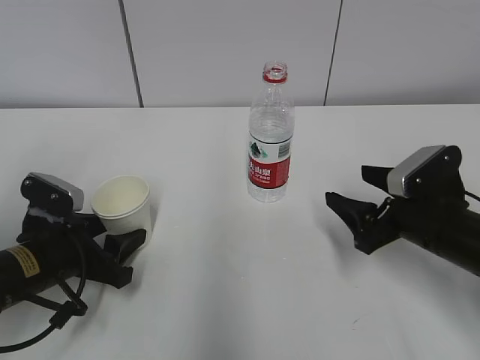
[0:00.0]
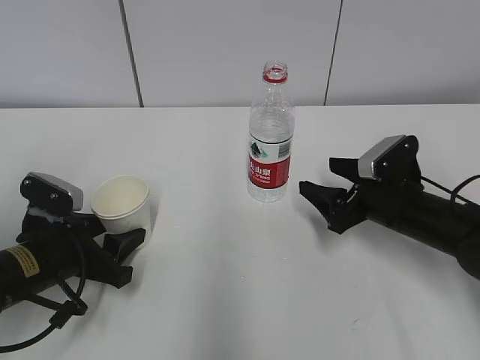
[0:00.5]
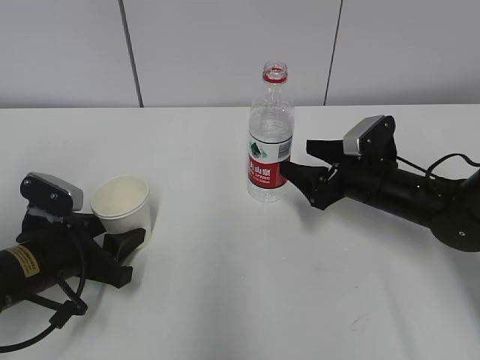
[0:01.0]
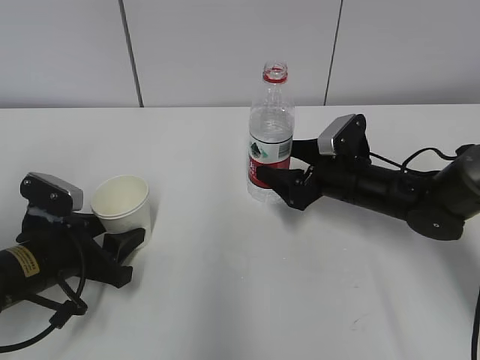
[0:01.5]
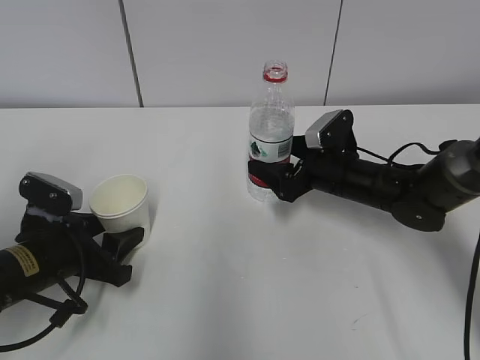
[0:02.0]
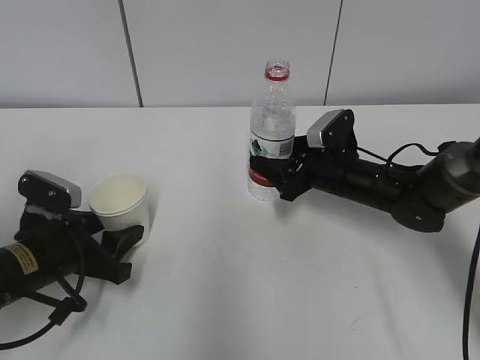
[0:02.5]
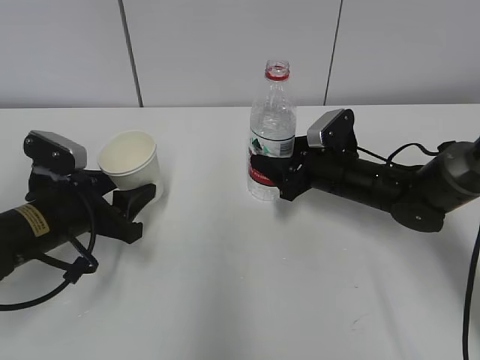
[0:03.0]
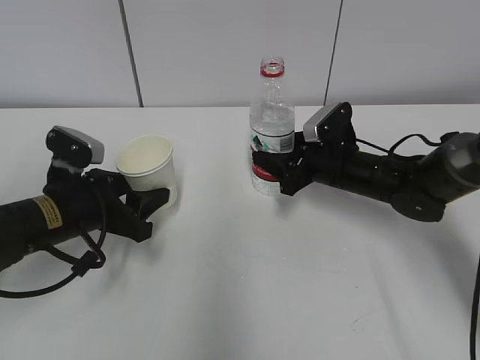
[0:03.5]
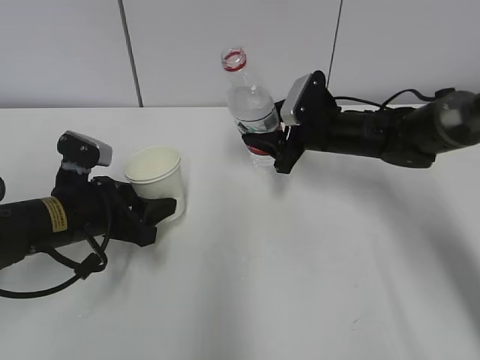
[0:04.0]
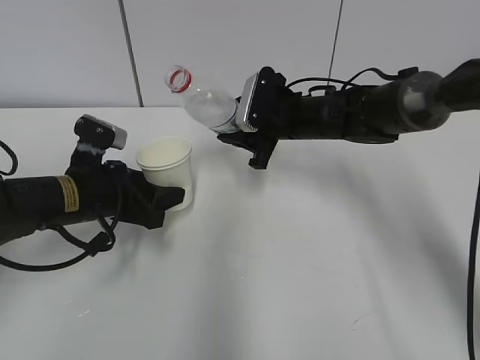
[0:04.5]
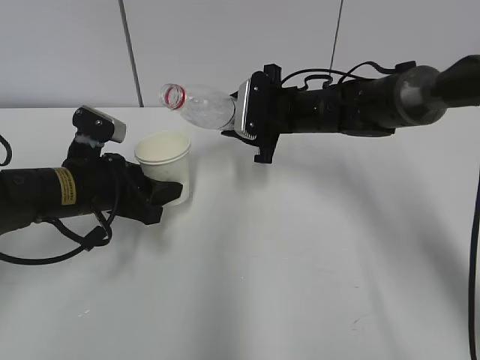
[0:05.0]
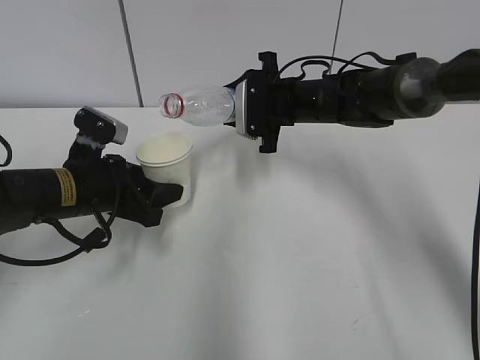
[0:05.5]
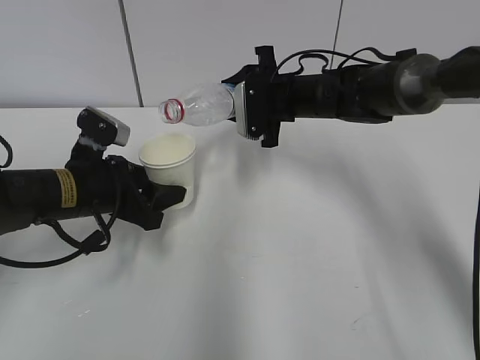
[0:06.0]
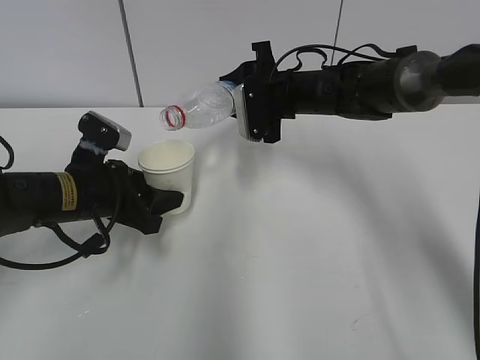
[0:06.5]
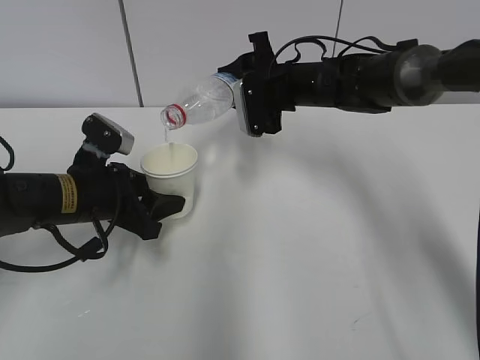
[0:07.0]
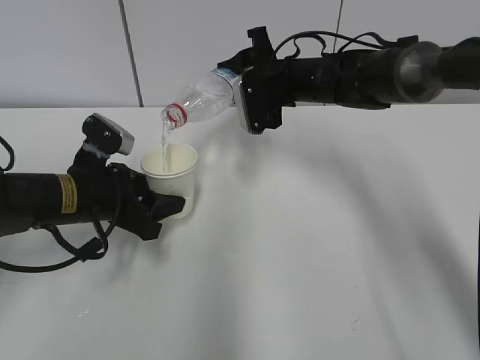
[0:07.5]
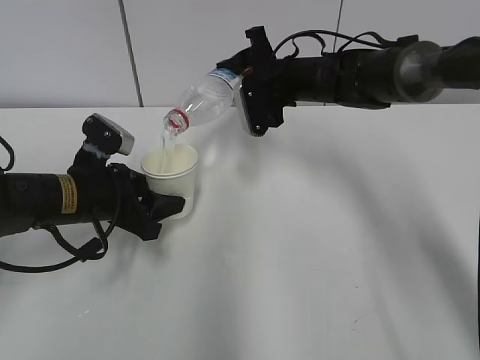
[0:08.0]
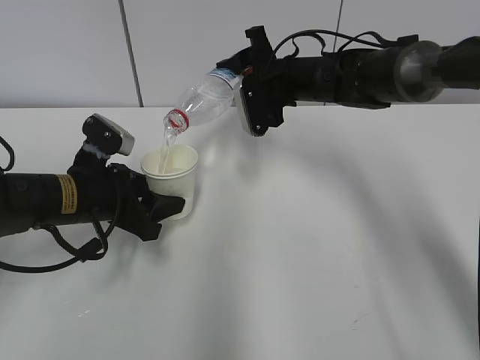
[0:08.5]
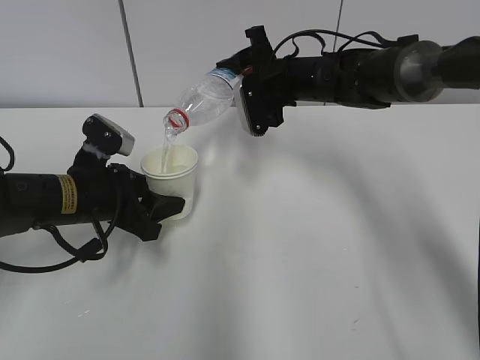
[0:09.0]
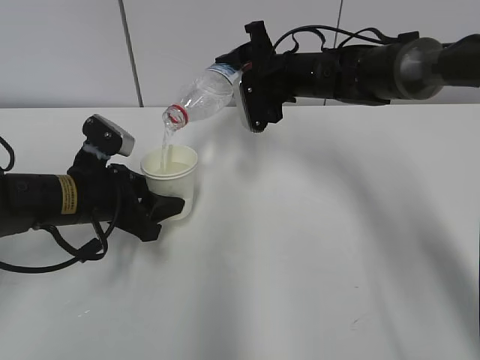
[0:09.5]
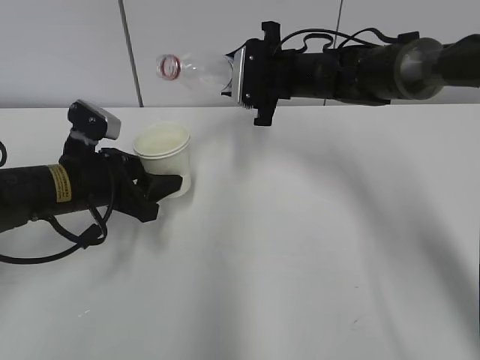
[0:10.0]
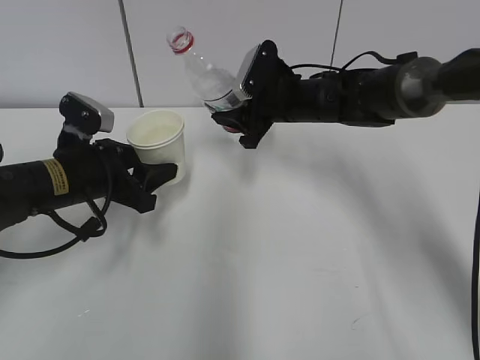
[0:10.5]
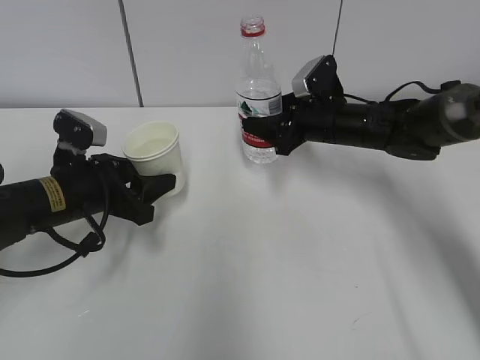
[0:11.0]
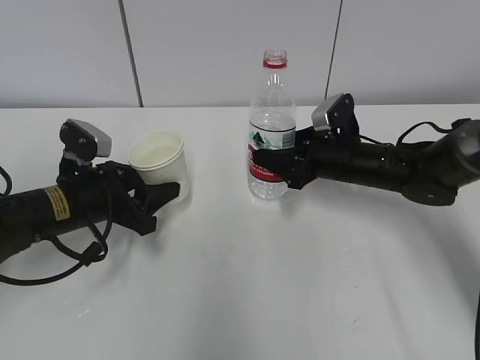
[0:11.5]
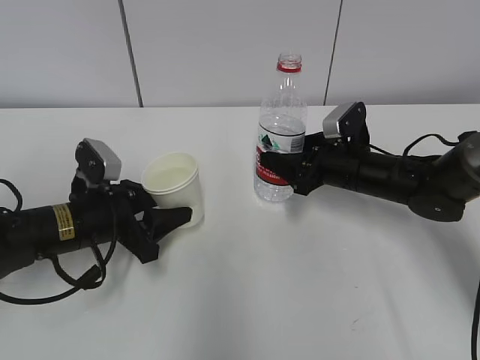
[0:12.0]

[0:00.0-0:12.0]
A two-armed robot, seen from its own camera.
Step, 0:01.5 to 0:04.5: Lift the paper cup with the left hand.
Step, 0:05.0 to 0:07.0: Fill water with the left hand.
Step, 0:05.0 to 0:07.0: Pour water with the right hand.
Step, 0:07.5 to 0:08.0: Collect water with the right hand.
Step, 0:08.5 to 0:10.0: Place the paper cup with the left hand.
Step, 0:10.5 to 0:11.0: Place the water bottle with the right hand.
0:00.0 to 0:02.0: The right gripper moves forward and to the left, roughly 15 cm.
0:02.0 to 0:04.0: The right gripper shifts by about 5 cm, and closes its fingers, while the left gripper shifts by some 5 cm.
0:04.0 to 0:06.0: The right gripper shifts by about 5 cm.
0:06.0 to 0:08.0: The grippers stay close to where they were, moving slightly.
0:10.0 to 0:12.0: The right gripper shifts roughly 15 cm downward, backward and to the right.

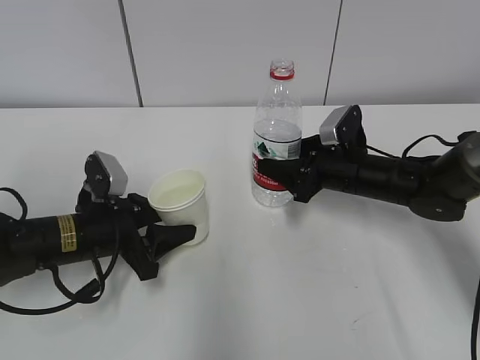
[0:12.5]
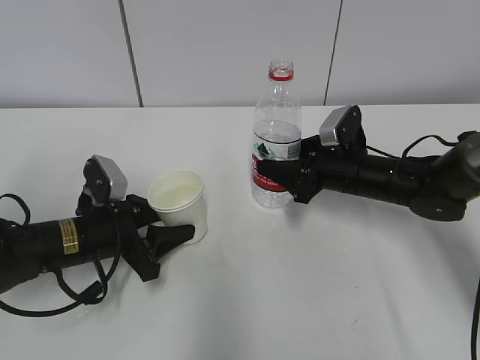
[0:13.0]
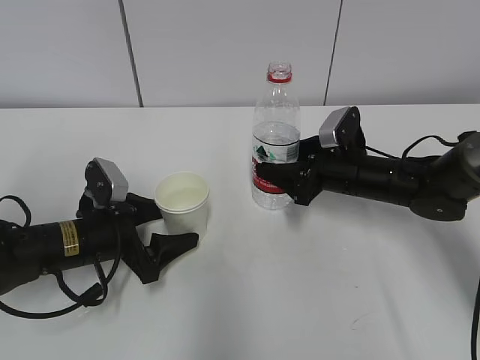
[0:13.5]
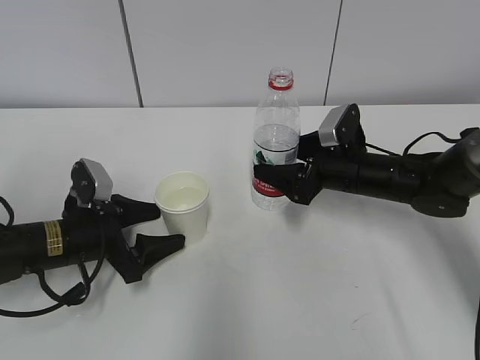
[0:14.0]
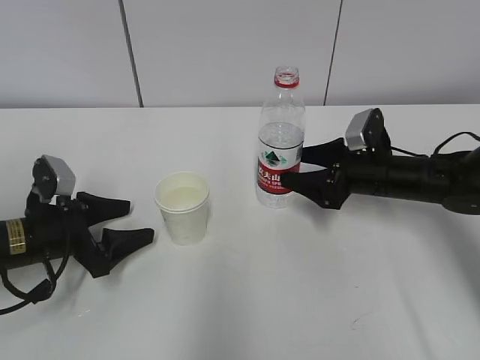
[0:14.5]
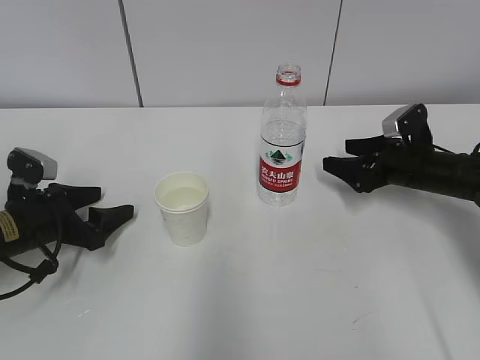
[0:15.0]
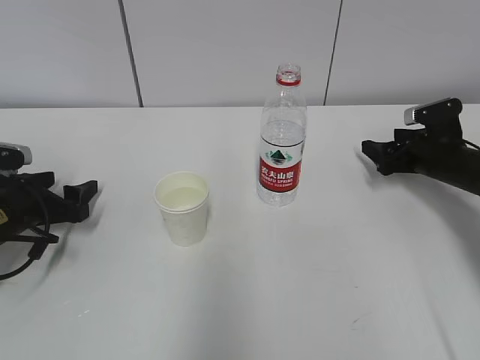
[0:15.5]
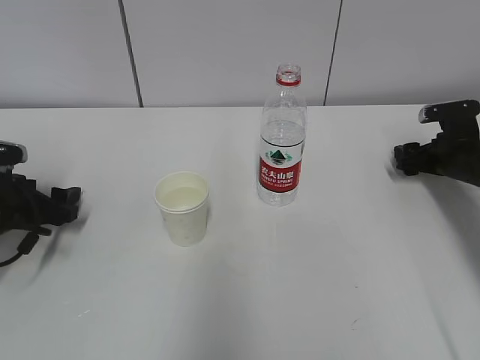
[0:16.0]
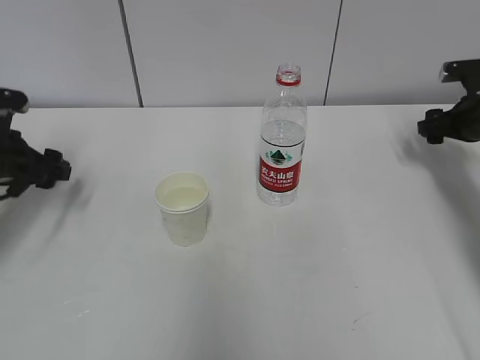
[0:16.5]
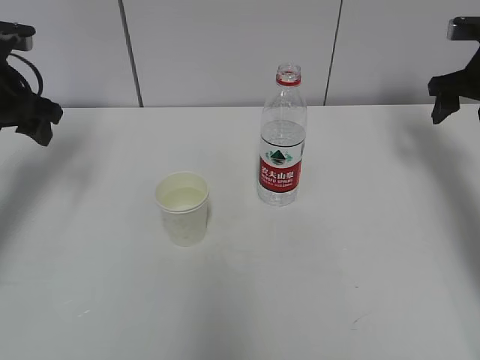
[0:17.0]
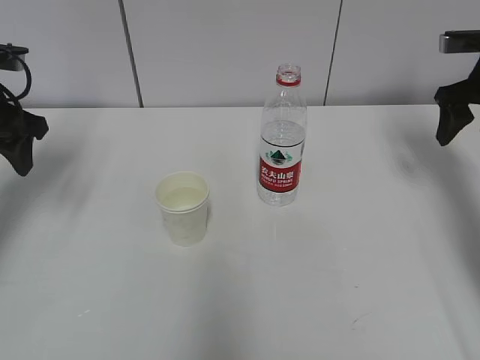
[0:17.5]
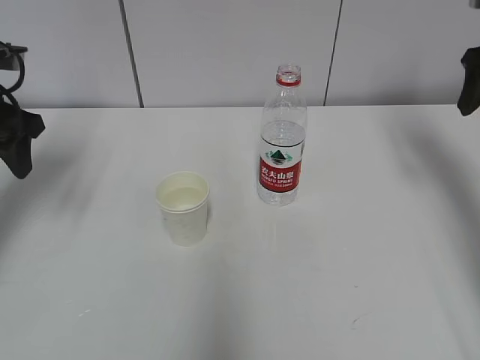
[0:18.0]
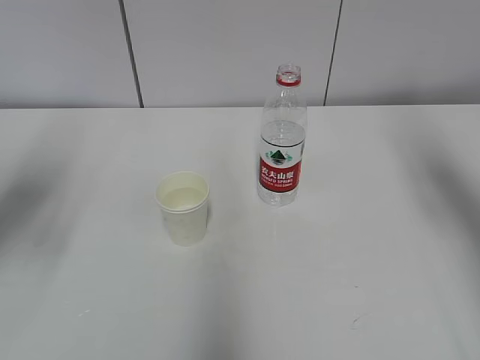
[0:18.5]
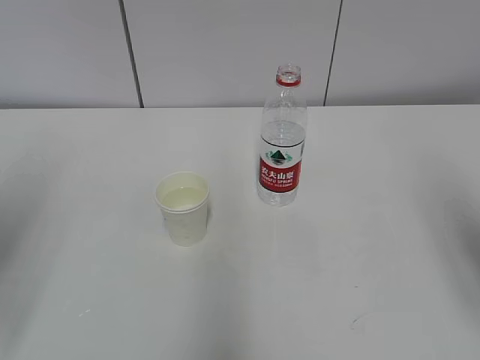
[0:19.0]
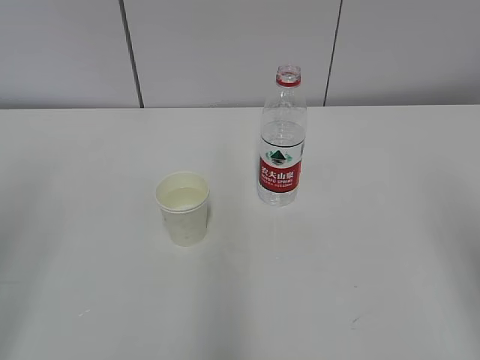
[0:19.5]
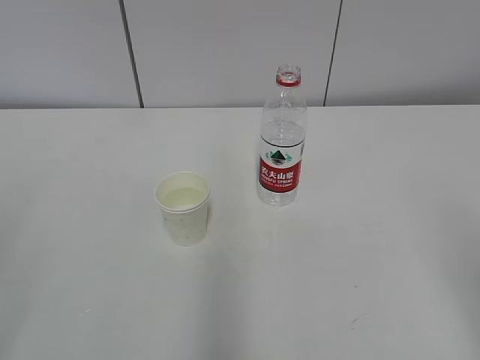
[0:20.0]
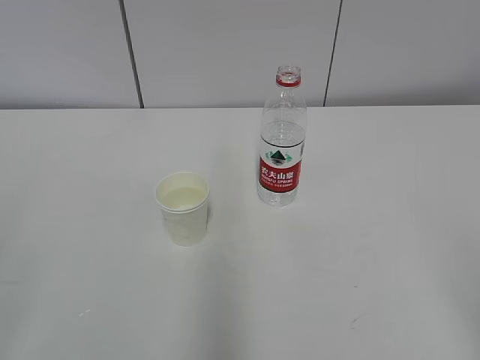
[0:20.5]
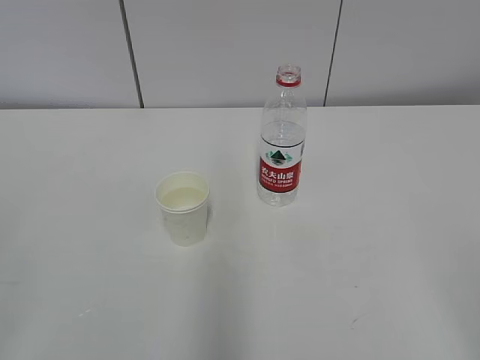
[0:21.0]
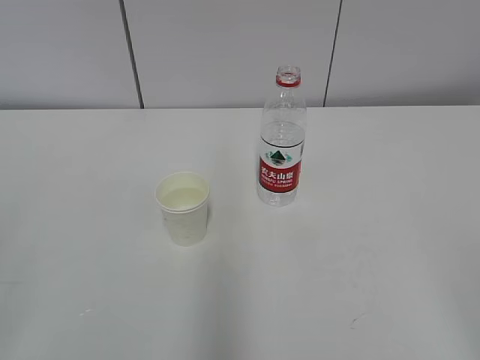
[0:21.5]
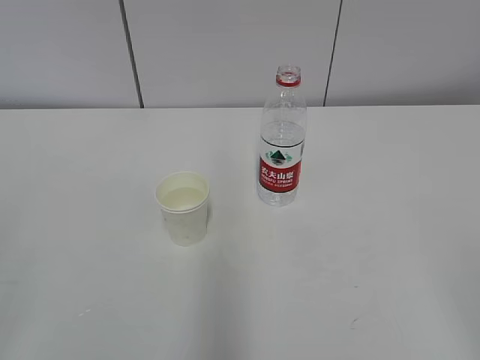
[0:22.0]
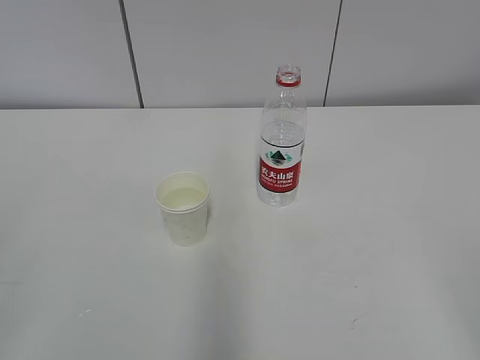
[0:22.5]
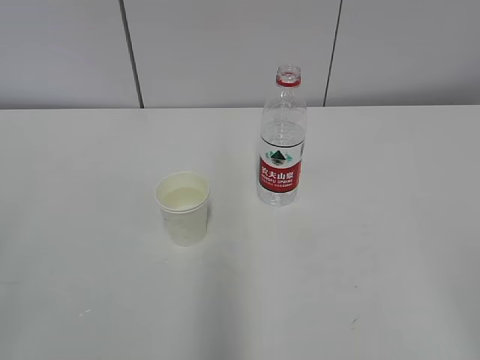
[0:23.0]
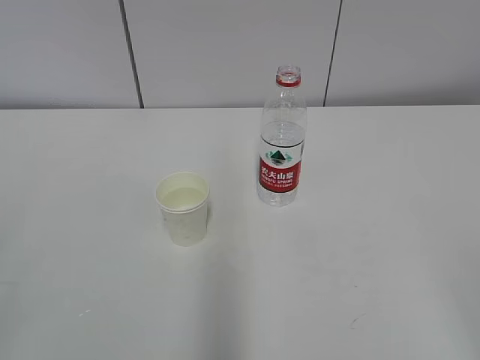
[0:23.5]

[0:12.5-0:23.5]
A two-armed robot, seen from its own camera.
0:12.5 to 0:14.5: The left gripper is displaced to the left by approximately 5 cm, and opens. Meanwhile the right gripper opens up.
0:14.5 to 0:16.0: The right gripper goes about 15 cm to the right. Meanwhile the left gripper moves to the left, roughly 5 cm.
0:16.0 to 0:18.0: The grippers both shift upward by approximately 20 cm.
0:18.0 to 0:20.0: The two grippers go approximately 35 cm backward.
0:21.5 to 0:23.5: Both grippers stay about where they are.
